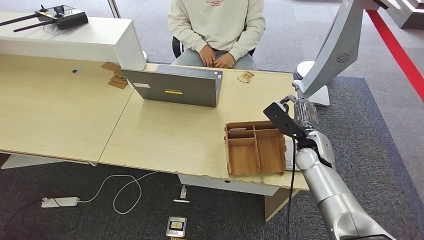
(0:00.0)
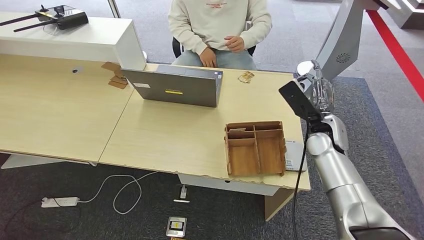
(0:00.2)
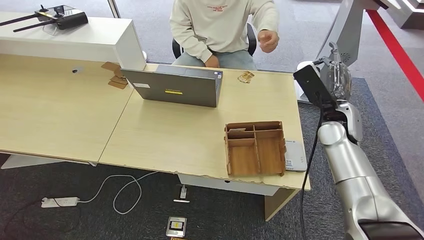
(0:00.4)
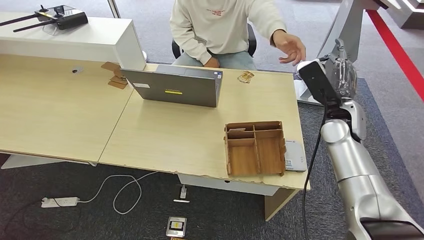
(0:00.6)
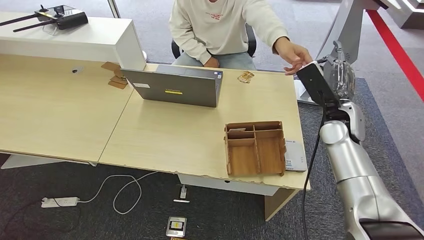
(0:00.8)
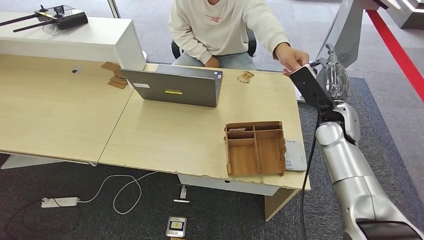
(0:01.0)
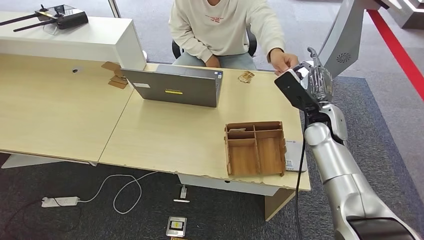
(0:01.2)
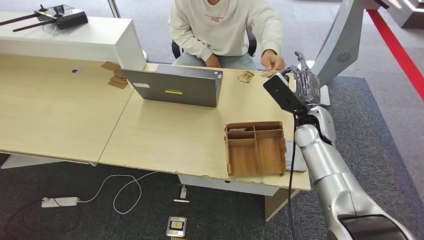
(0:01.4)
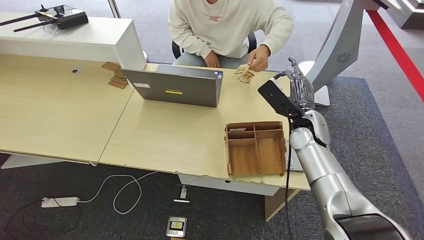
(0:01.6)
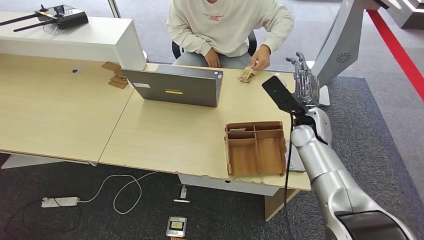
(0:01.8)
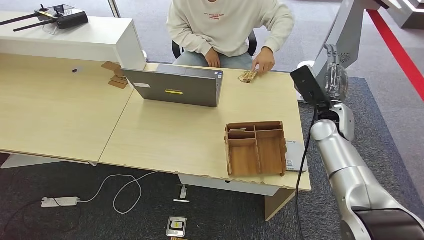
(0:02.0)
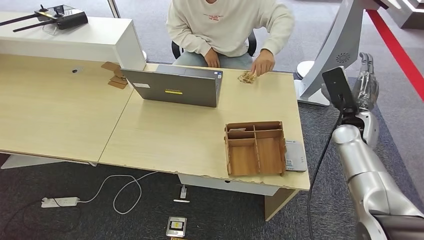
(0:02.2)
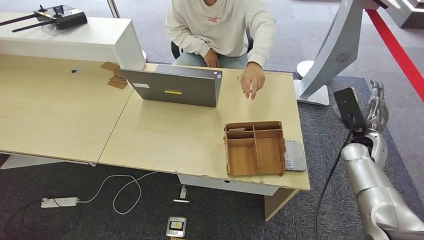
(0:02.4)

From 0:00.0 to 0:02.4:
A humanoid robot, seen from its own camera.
Step, from 0:00.6 to 0:02.4: Hand the room key to the person.
From 0:00.0 to 0:01.2: The right hand goes roughly 10 cm upward.
From 0:01.2 to 0:02.4: The right hand shifts some 15 cm to the right and downward.

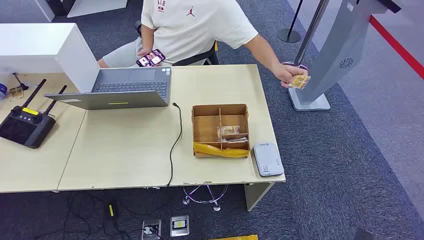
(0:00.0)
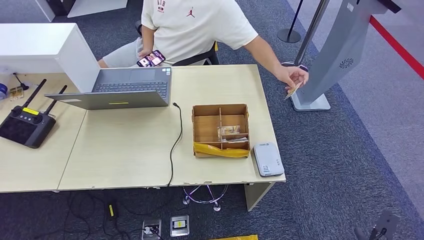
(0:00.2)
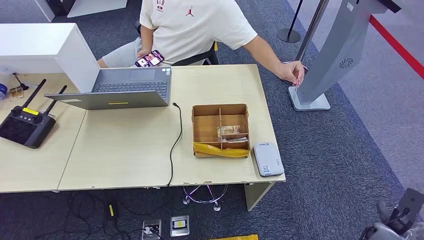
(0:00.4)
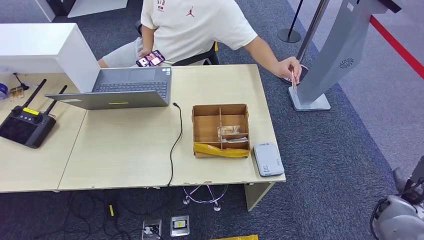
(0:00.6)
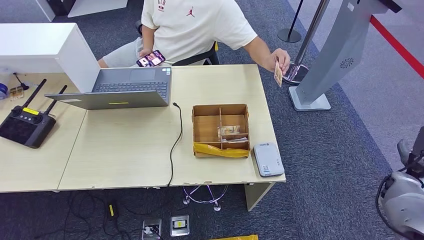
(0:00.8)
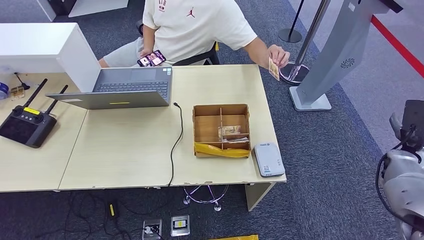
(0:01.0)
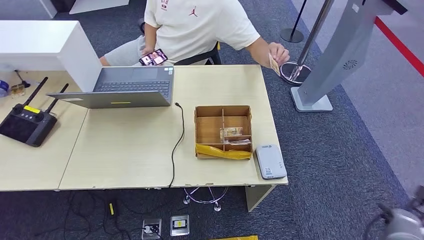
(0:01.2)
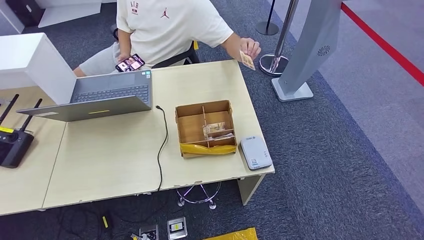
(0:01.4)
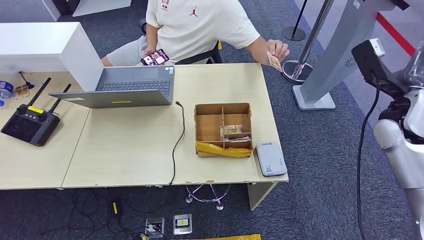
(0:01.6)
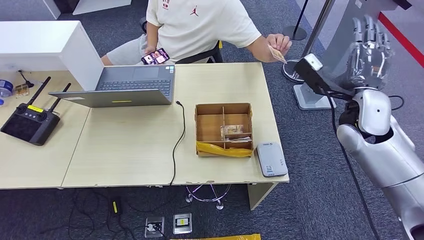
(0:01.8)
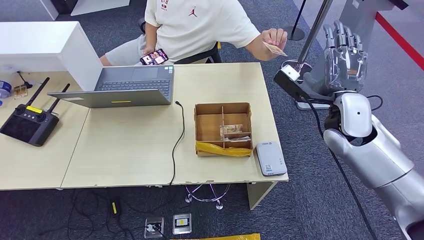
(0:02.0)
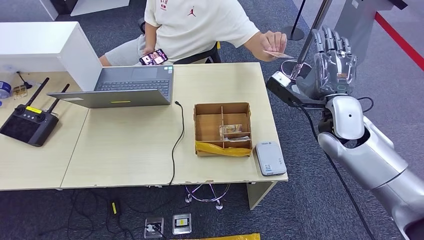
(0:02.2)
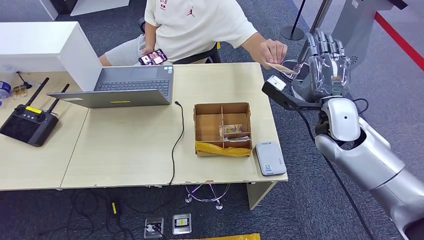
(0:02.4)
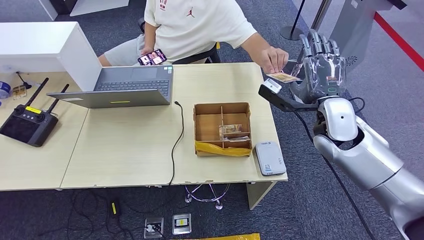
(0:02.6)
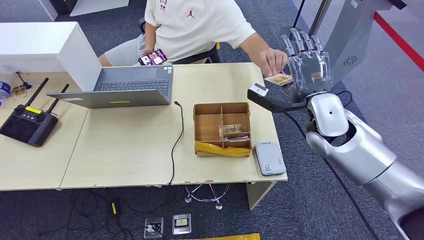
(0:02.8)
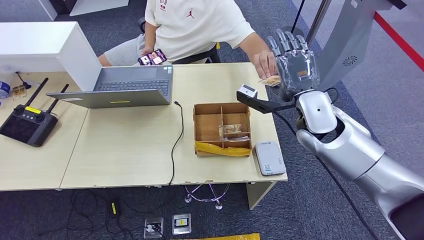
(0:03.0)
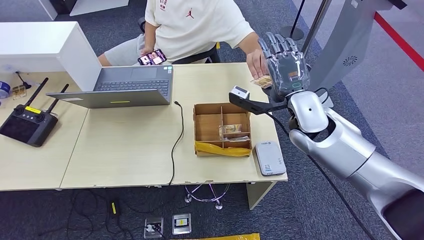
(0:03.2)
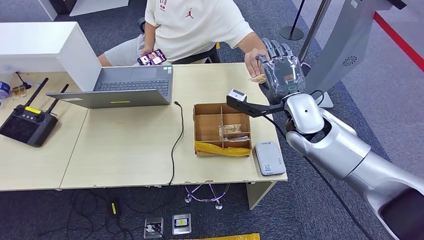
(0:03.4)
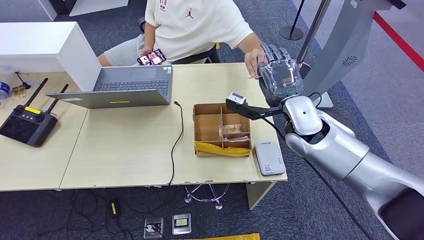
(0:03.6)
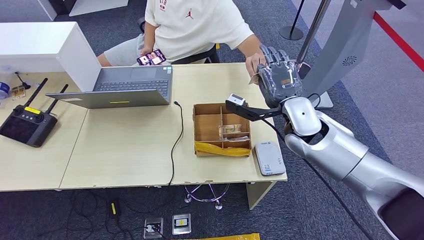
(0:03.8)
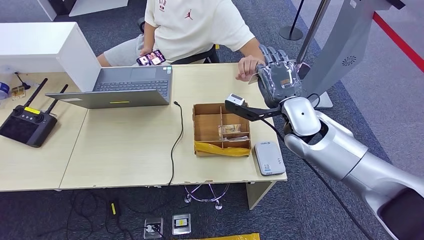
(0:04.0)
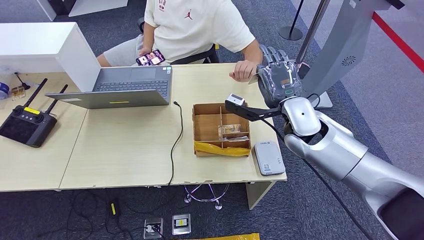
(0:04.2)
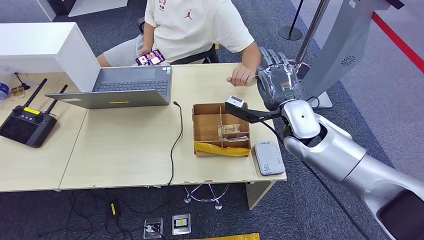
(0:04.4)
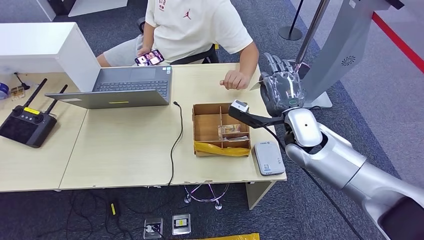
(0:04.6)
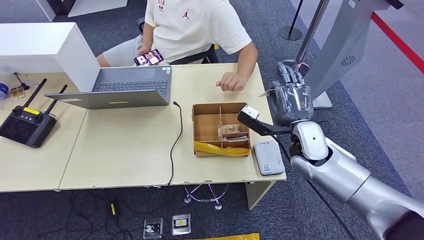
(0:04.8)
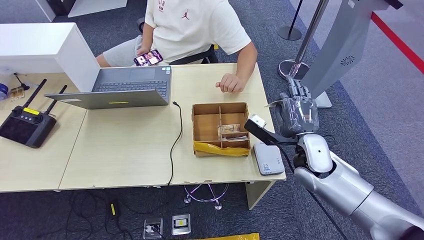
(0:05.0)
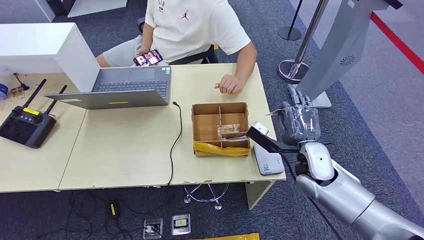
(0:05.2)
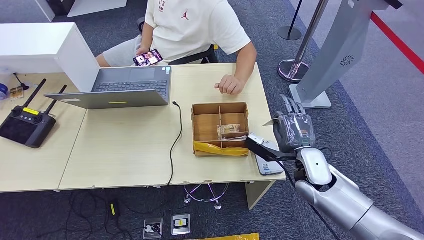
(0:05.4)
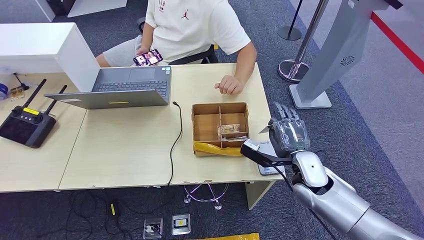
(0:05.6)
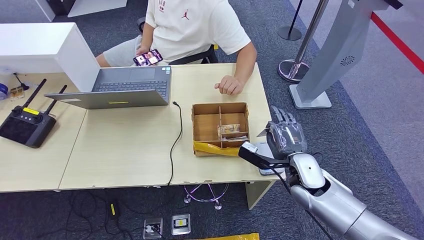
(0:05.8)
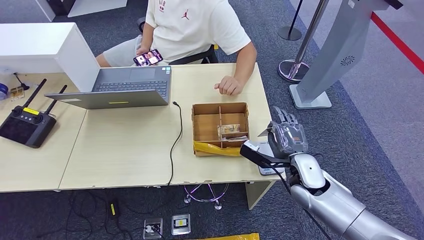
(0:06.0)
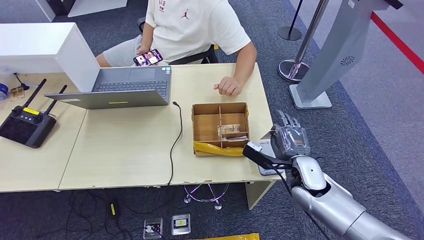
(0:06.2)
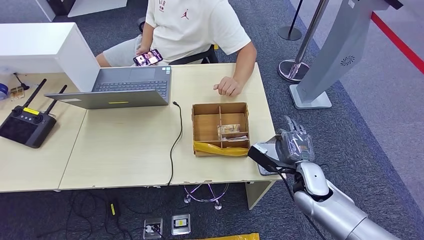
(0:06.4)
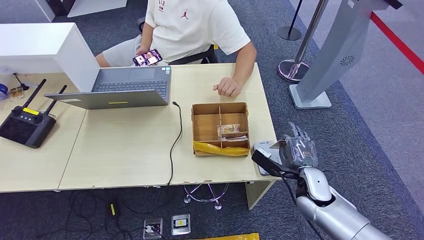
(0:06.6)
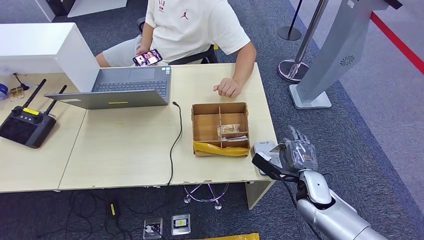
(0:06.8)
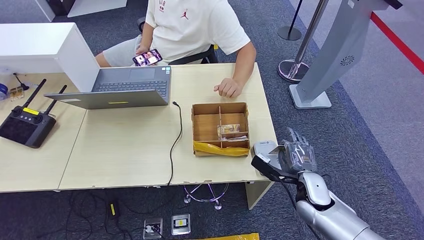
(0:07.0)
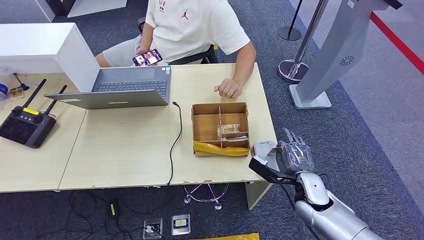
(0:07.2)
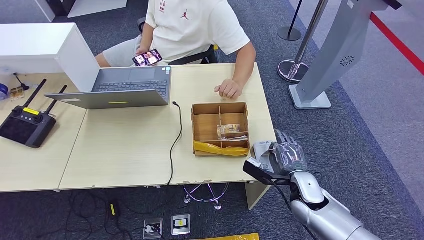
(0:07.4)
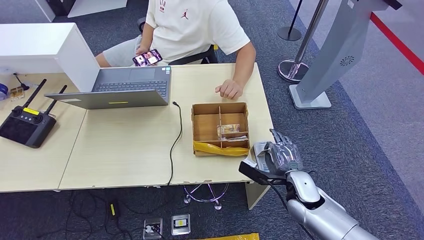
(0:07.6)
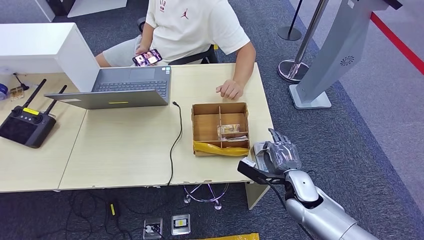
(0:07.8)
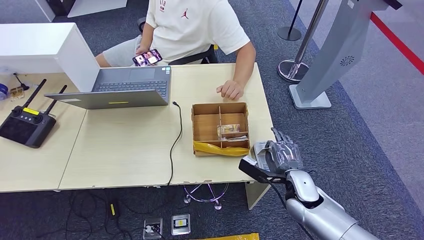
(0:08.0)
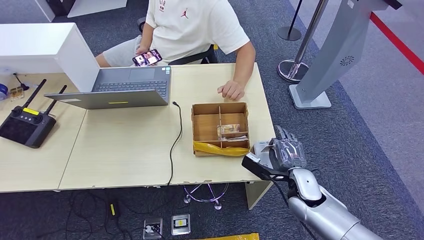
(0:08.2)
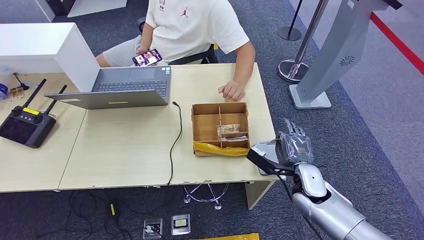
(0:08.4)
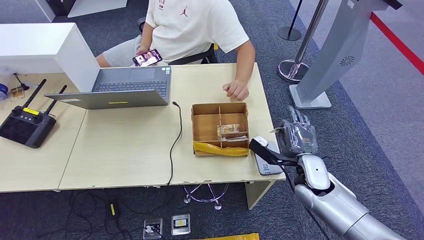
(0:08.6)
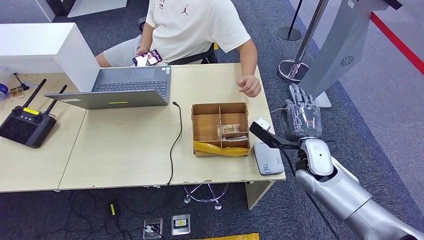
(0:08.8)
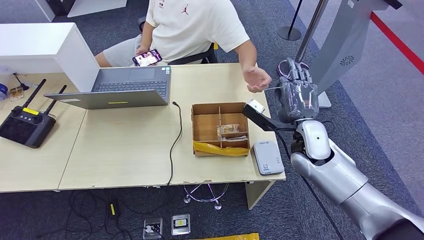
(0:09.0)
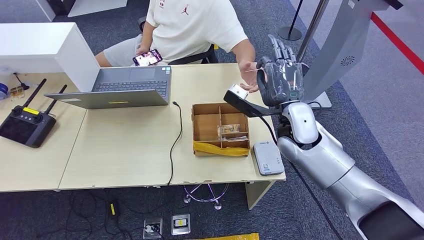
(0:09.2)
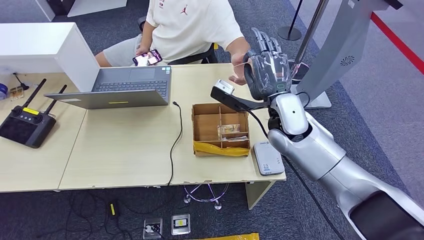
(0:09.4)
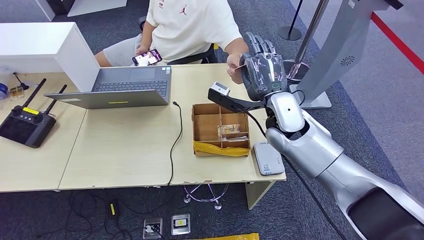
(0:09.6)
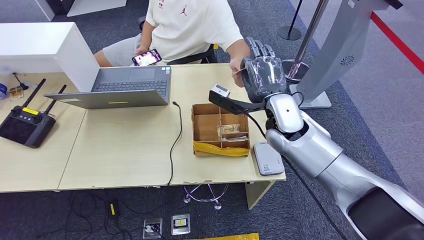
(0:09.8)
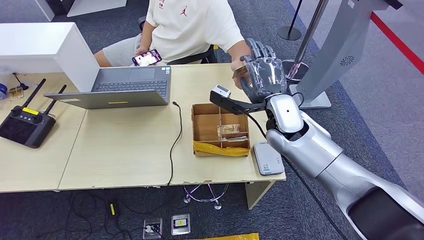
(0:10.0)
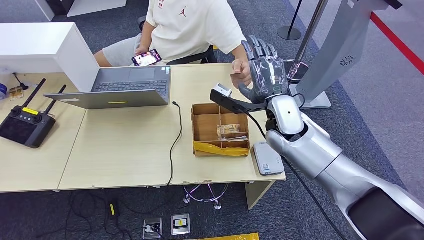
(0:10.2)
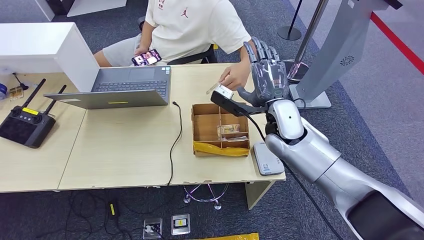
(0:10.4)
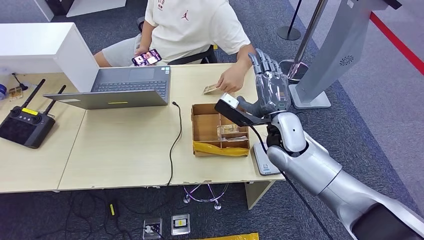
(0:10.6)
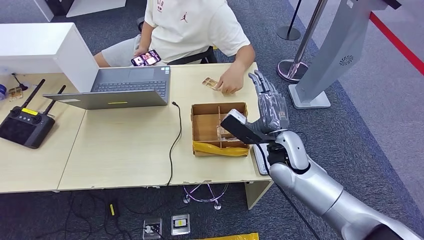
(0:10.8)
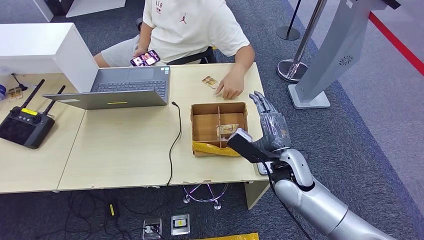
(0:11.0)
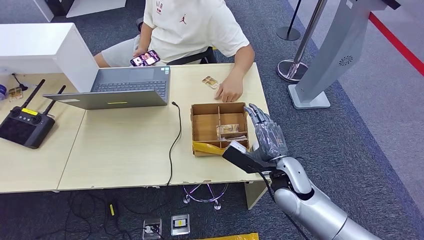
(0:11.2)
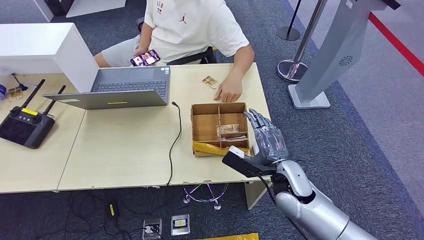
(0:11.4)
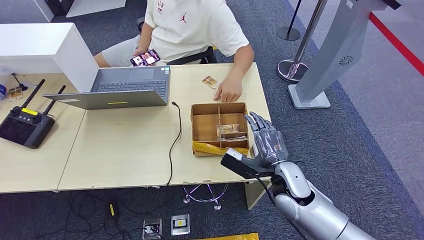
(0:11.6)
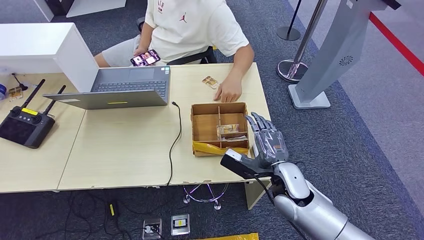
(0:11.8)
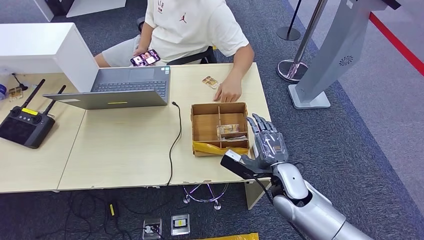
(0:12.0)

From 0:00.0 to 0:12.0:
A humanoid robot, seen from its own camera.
Step, from 0:00.0 to 0:04.0: Take the ID card from the person's hand.
Step, from 0:04.6 to 0:07.8: Place the ID card on the card reader.
Step, from 0:08.4 to 0:10.2: Hand the ID card to the person.
From 0:03.0 to 0:04.4: The hands make only small movements.
From 0:04.4 to 0:06.0: The right hand heads downward and backward, covering about 15 cm.
From 0:06.0 to 0:07.6: The right hand moves downward, about 5 cm.
From 0:07.6 to 0:09.0: The right hand travels upward and forward by about 15 cm.
From 0:09.0 to 0:10.4: The right hand is displaced to the left by about 5 cm.
From 0:10.4 to 0:12.0: The right hand is displaced downward and backward by about 15 cm.

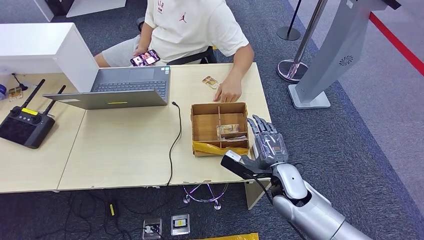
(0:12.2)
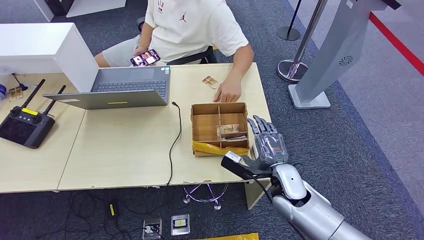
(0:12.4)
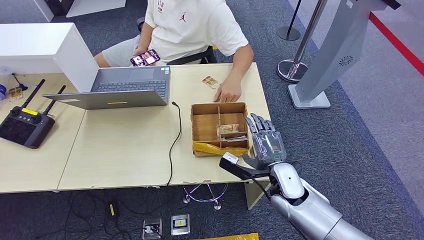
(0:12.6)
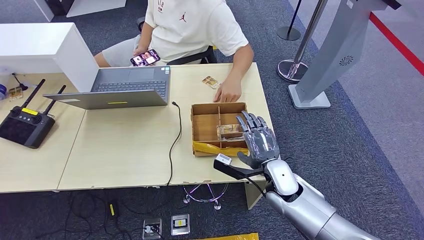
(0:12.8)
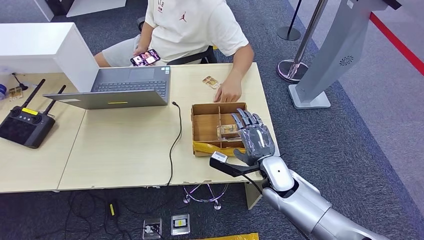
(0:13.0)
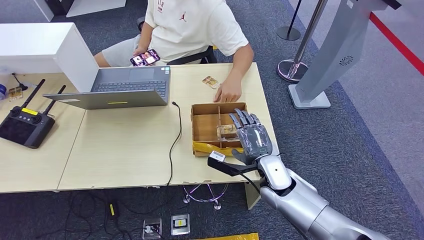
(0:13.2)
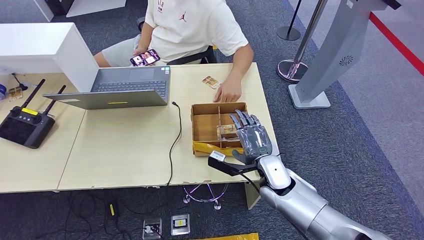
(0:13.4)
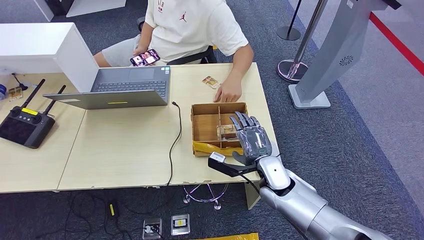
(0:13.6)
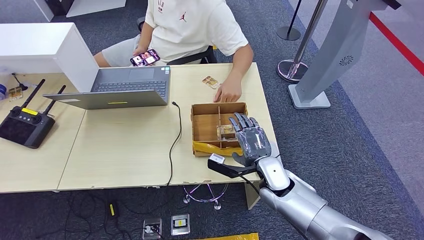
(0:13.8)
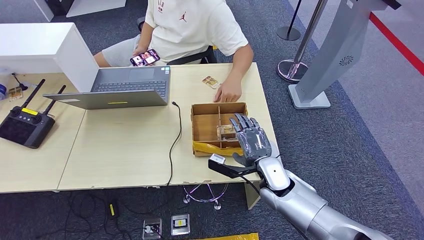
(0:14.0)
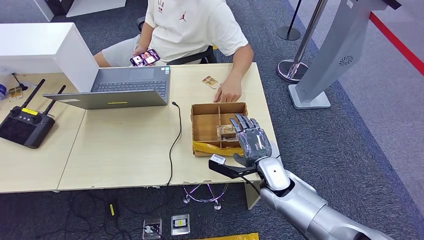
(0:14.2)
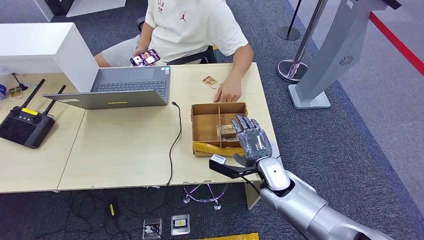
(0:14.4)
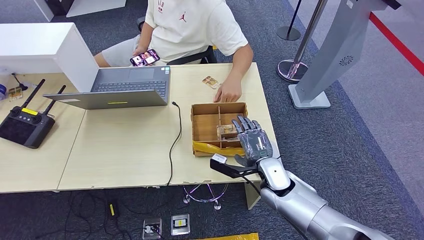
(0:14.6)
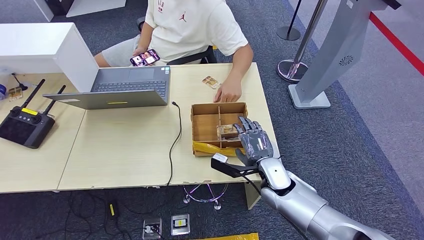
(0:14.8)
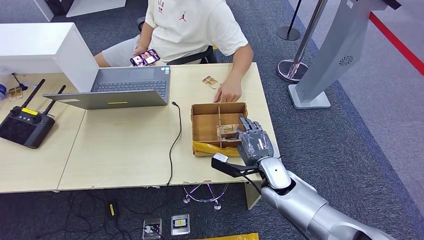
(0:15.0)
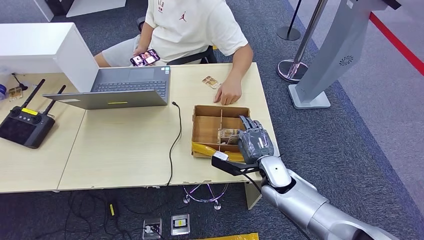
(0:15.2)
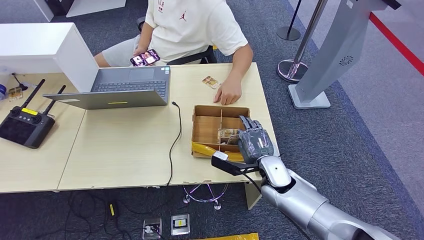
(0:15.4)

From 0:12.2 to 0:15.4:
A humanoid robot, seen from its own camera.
From 0:12.2 to 0:15.4: The hands stay close to where they were, moving slightly.
